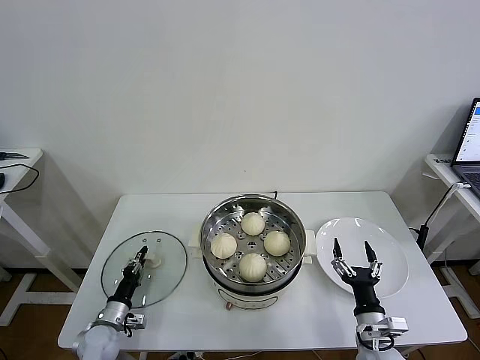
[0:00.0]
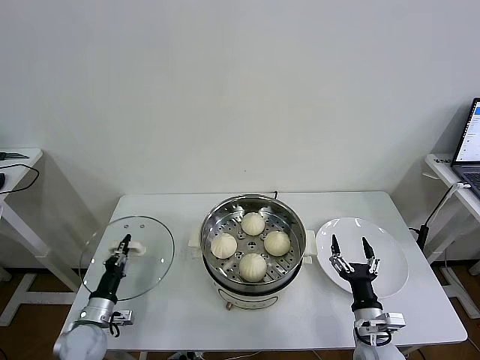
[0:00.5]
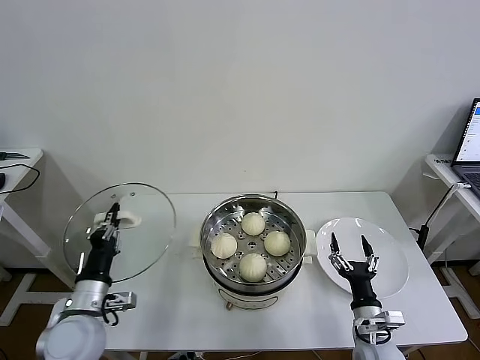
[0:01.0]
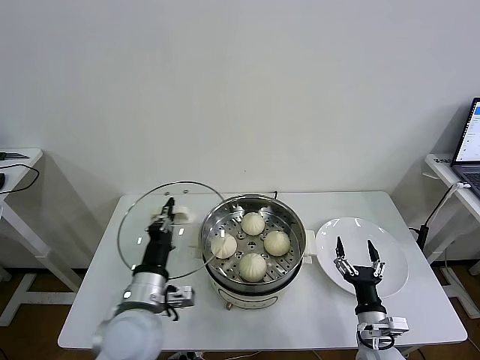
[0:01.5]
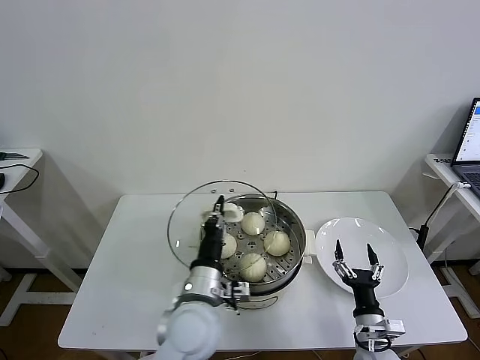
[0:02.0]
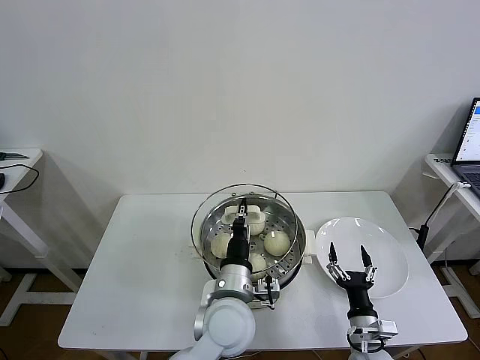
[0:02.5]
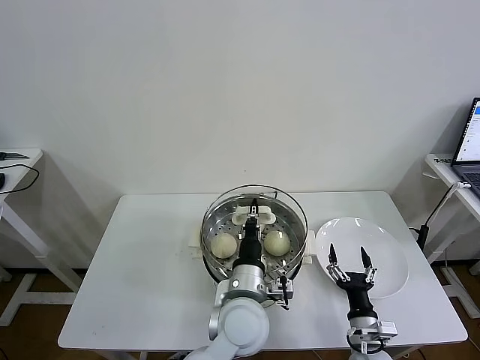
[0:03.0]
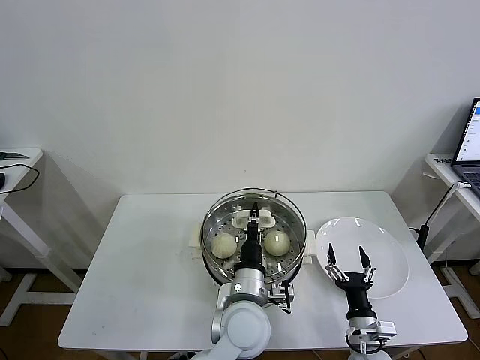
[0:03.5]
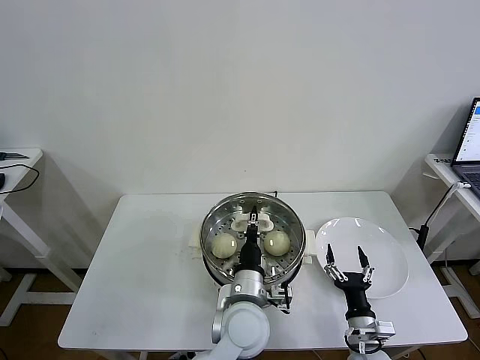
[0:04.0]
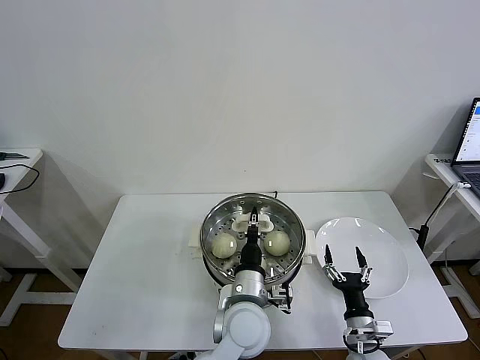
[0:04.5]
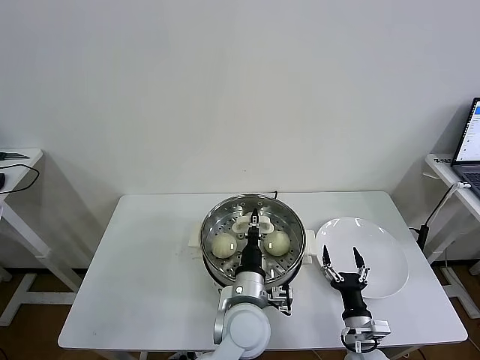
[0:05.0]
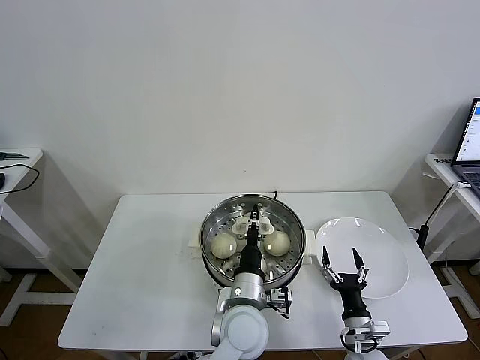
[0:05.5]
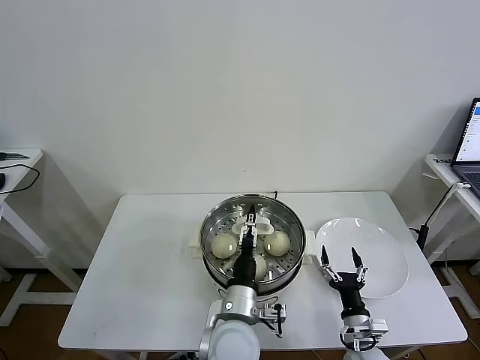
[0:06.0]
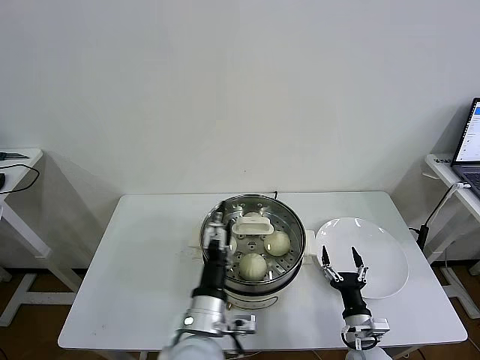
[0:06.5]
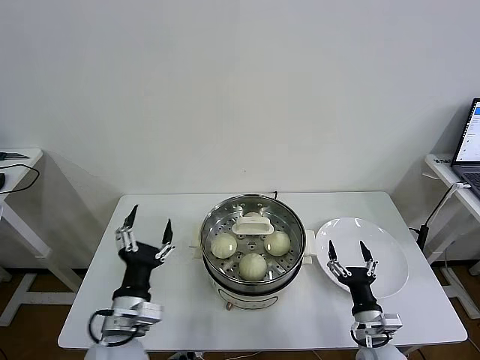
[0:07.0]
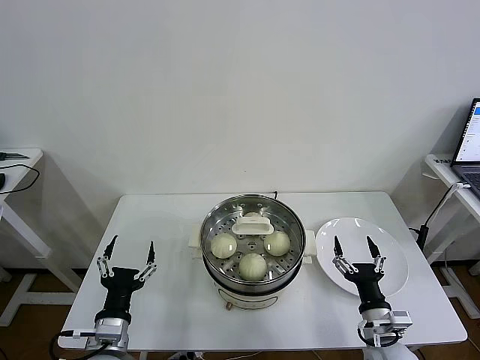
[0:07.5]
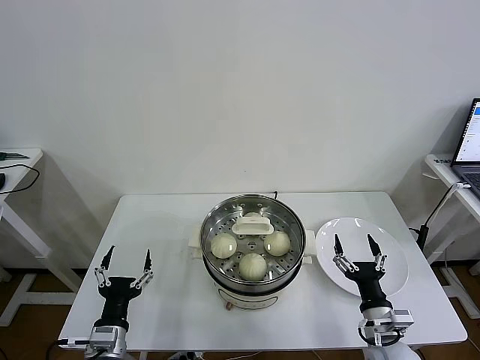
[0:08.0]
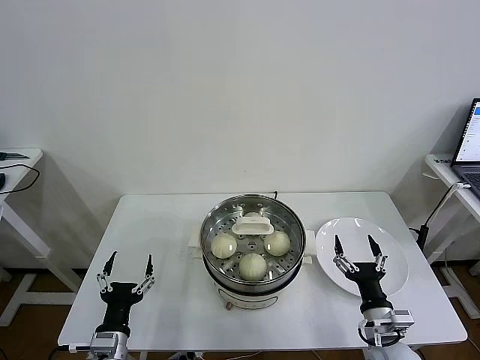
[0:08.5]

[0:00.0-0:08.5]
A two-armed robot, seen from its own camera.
Task of the whole recording: take steamed baozi put them in steamer then cover it.
Step, 0:00.5 to 0:06.0: Place the pot lid on the steamer with left gripper.
0:00.0 to 0:02.0: The left gripper is displaced to the right and upward by approximately 35 cm.
0:02.0 to 0:04.0: The left gripper heads to the right, covering approximately 10 cm.
0:04.0 to 0:06.5: The left gripper shifts roughly 10 cm to the left and backward, and opens up.
0:06.5 to 0:08.5: The left gripper travels to the left by some 20 cm. The right gripper is displaced upward by roughly 10 cm.
